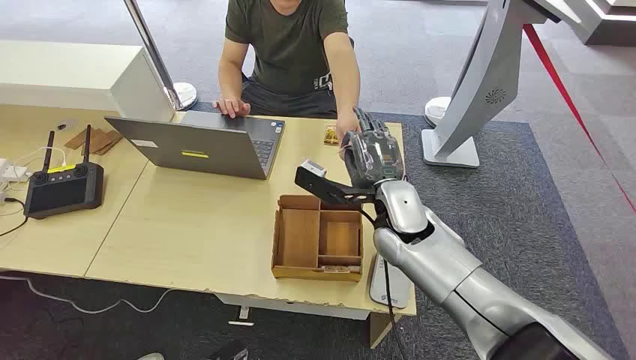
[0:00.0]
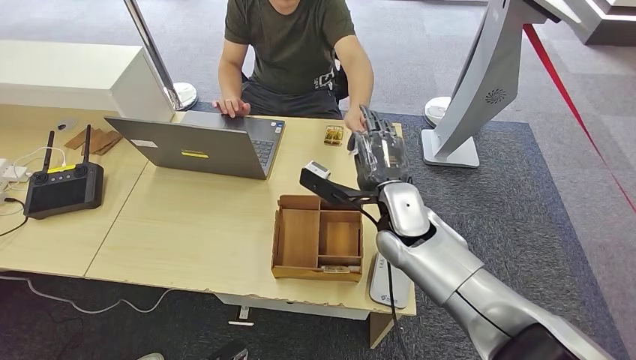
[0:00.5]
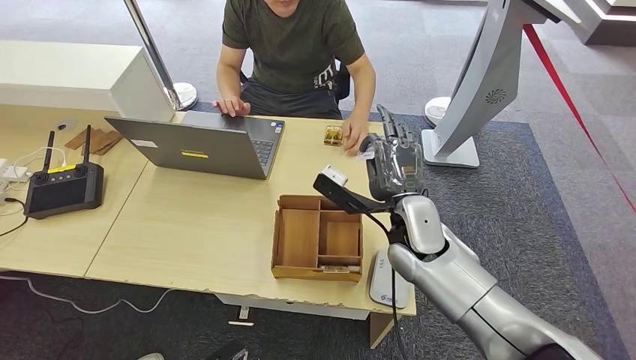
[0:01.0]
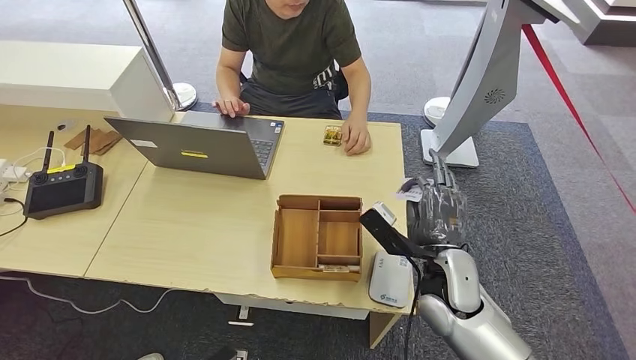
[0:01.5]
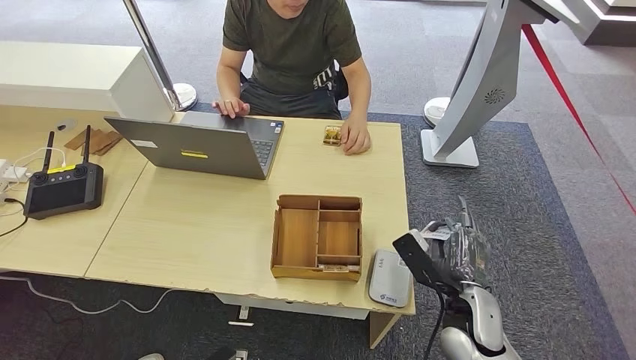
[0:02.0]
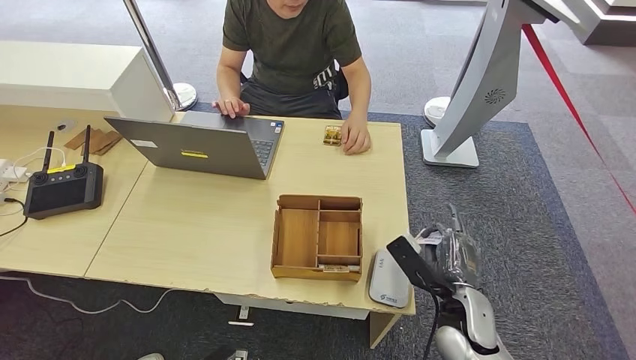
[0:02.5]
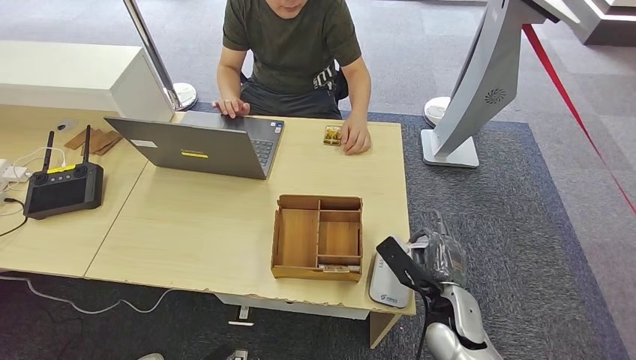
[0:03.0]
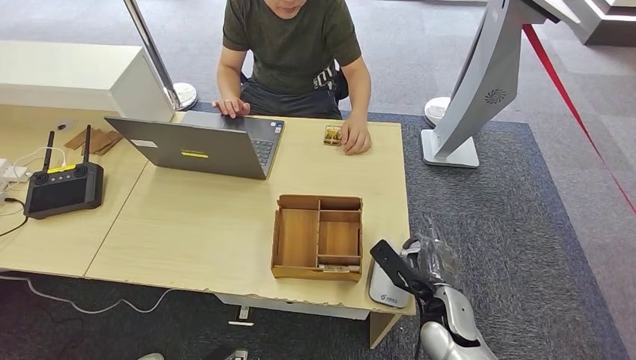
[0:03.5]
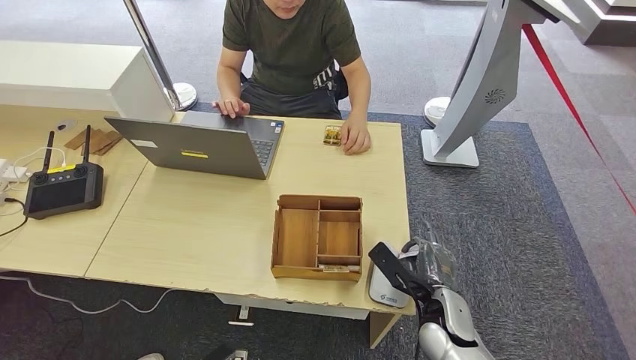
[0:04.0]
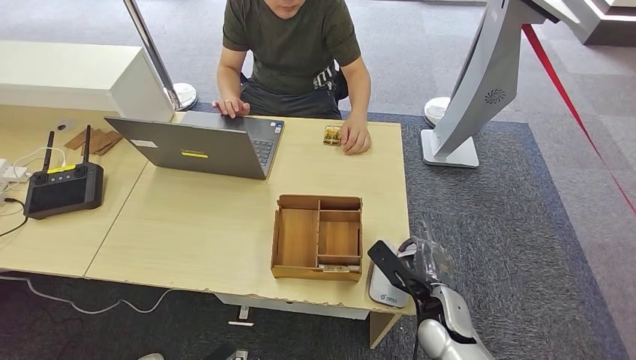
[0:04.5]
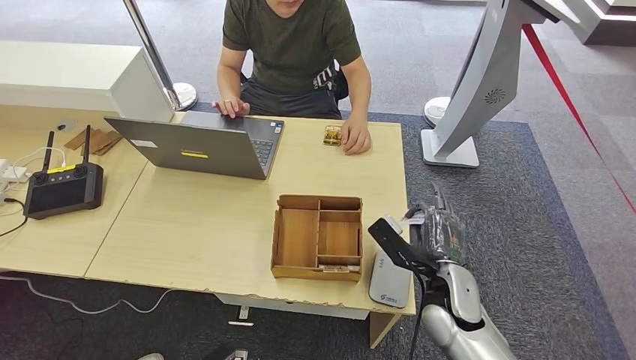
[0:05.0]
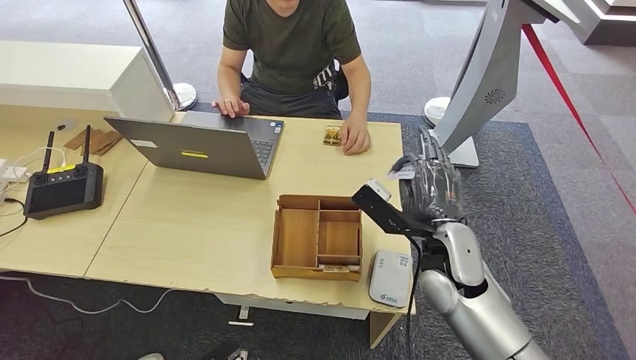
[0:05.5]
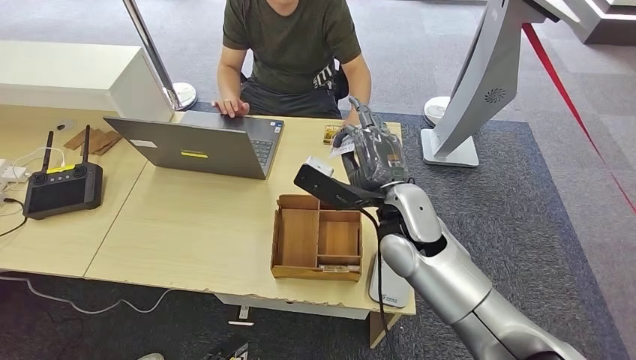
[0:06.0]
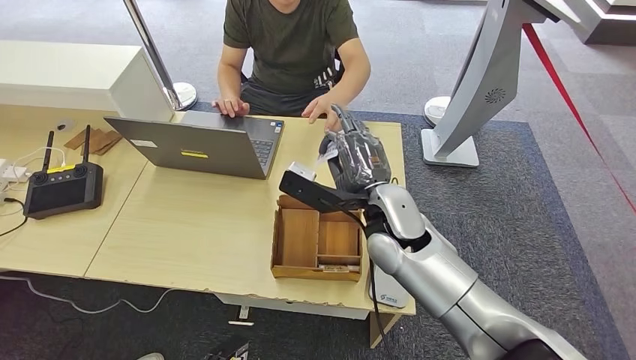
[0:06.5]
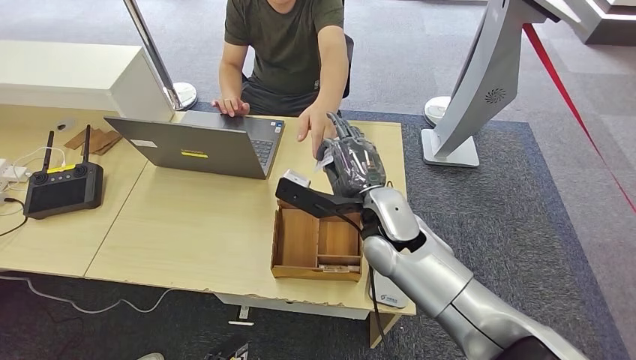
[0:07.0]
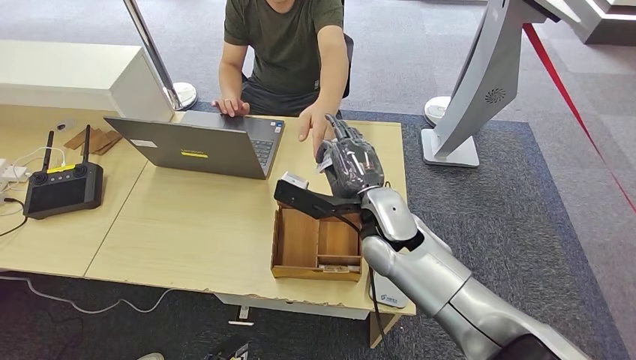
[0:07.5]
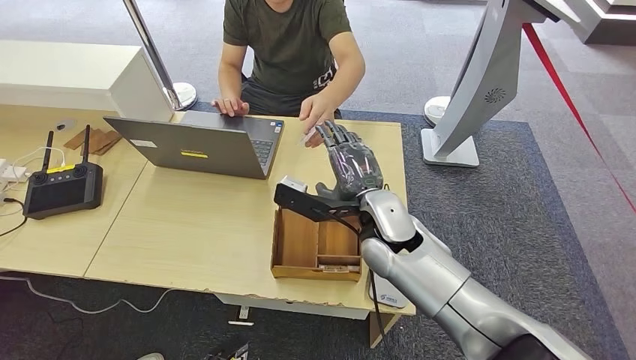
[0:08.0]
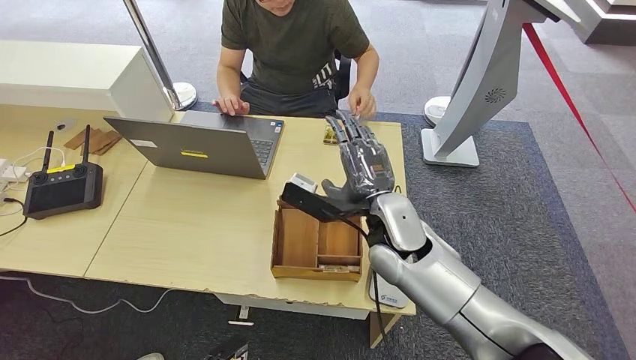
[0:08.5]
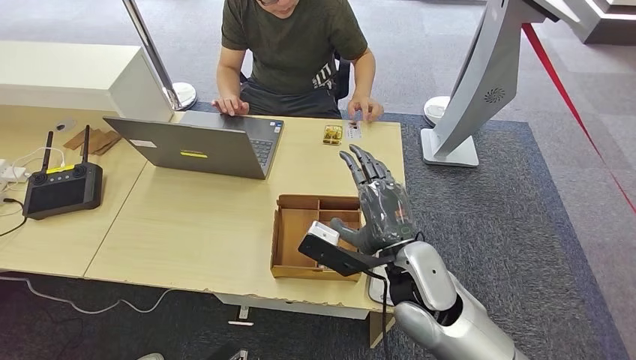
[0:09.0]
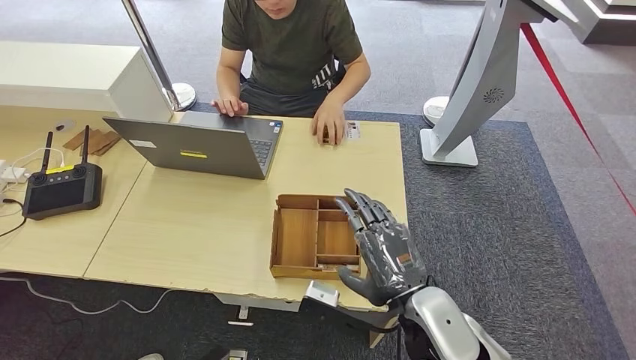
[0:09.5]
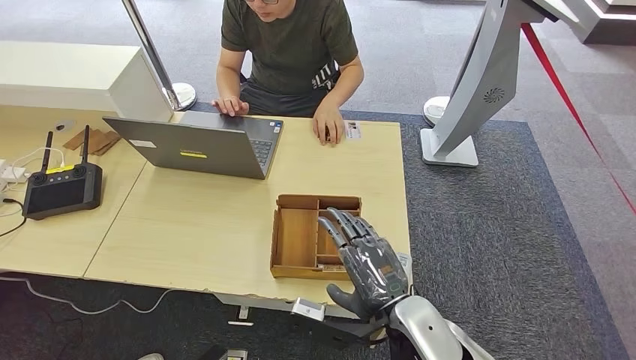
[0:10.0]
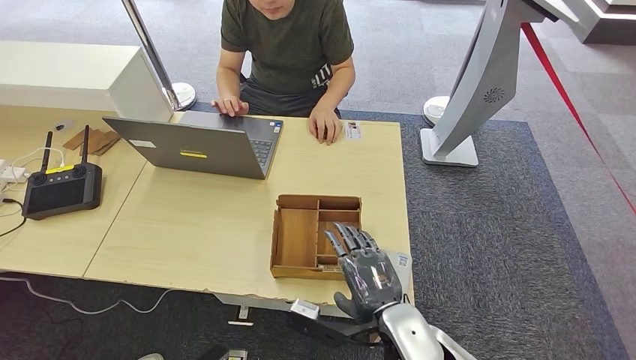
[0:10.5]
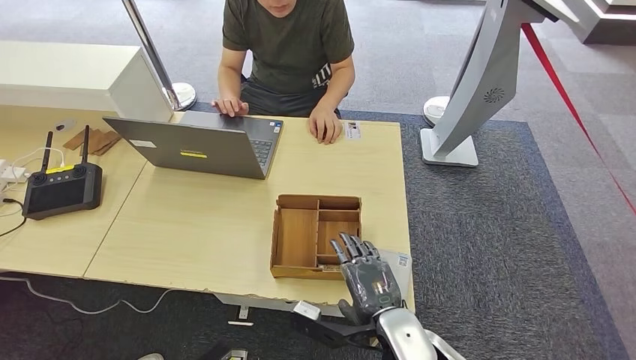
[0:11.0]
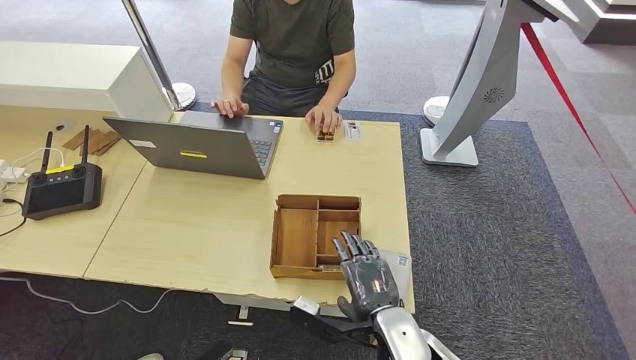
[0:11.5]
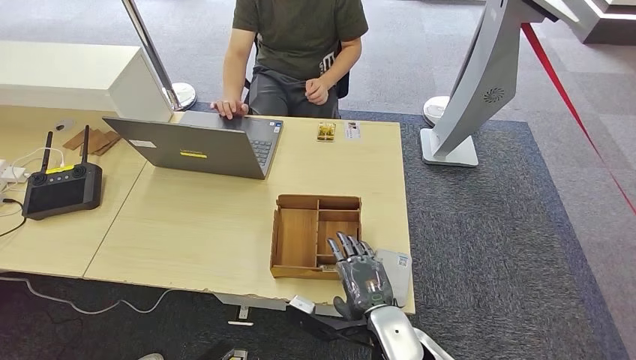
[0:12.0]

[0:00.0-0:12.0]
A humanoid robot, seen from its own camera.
Step, 0:00.0 to 0:01.0: Take the ID card from the person's hand.
Step, 0:01.5 to 0:04.5: Place the ID card on the card reader.
Step, 0:05.0 to 0:08.5: Hand the ID card to the person.
0:02.0 to 0:04.0: The right hand shifts by some 5 cm.
0:04.0 to 0:06.0: The right hand moves upward and to the left, approximately 20 cm.
0:06.0 to 0:08.0: There are only small adjustments of the hands.
0:08.0 to 0:10.0: The right hand is displaced backward by some 15 cm.
0:10.0 to 0:12.0: The right hand shifts about 10 cm downward.

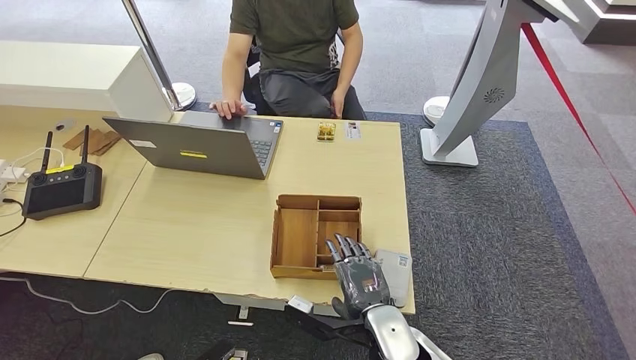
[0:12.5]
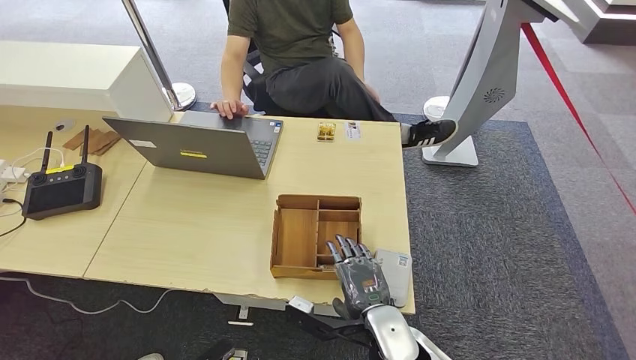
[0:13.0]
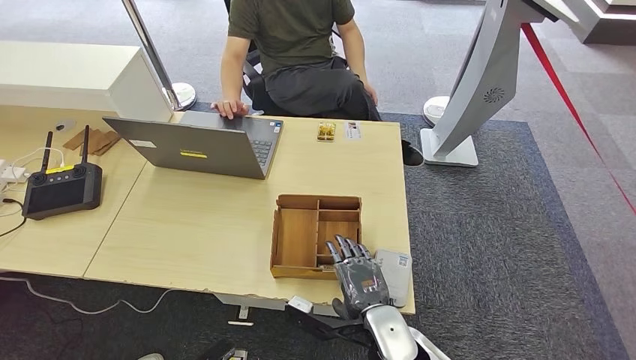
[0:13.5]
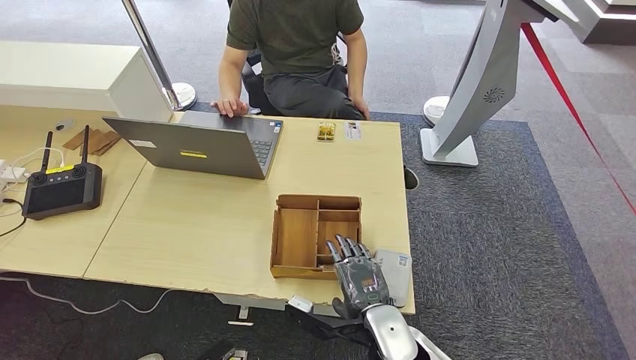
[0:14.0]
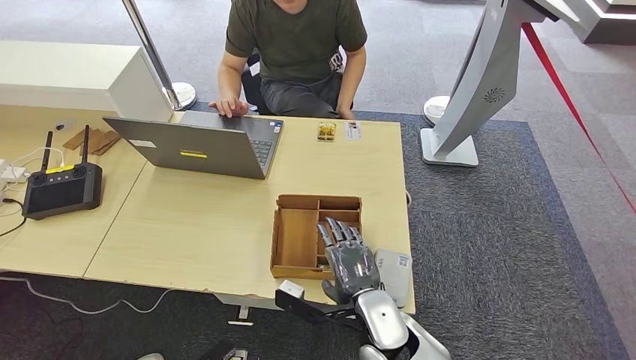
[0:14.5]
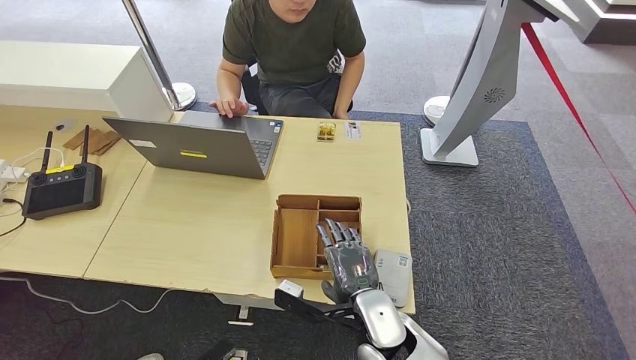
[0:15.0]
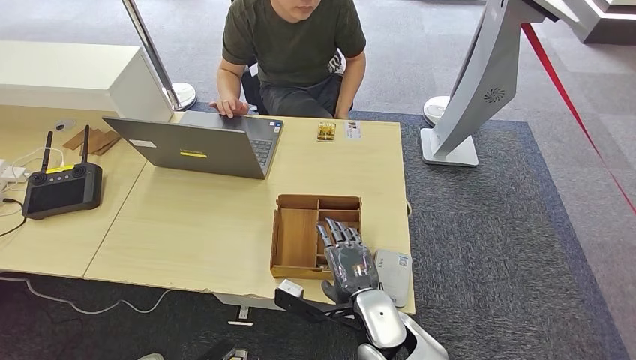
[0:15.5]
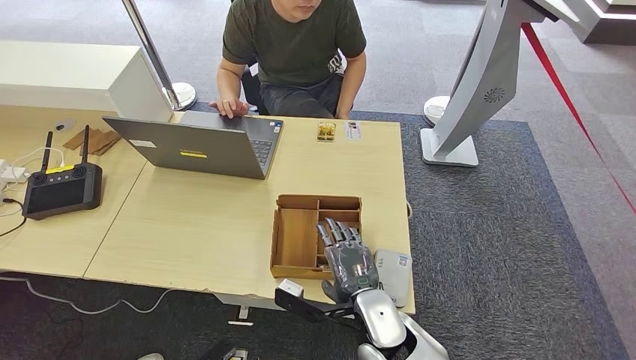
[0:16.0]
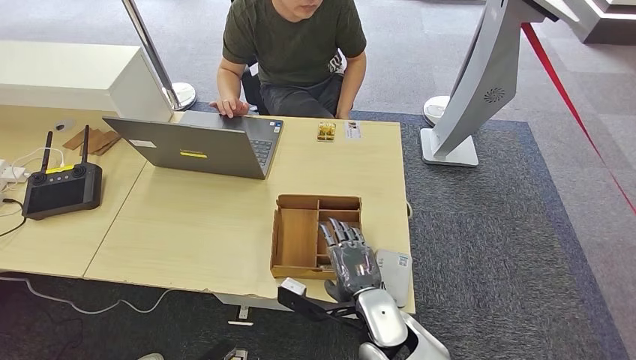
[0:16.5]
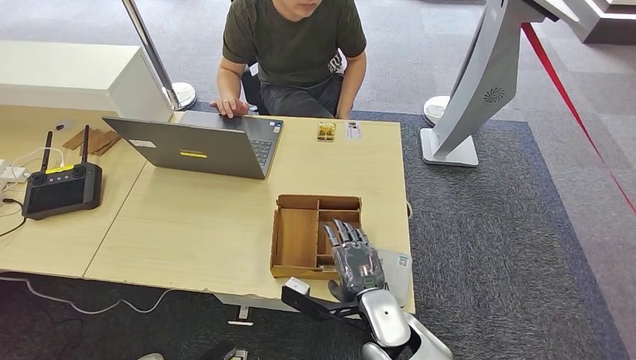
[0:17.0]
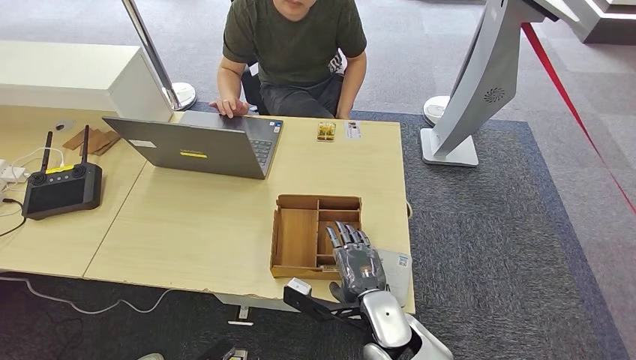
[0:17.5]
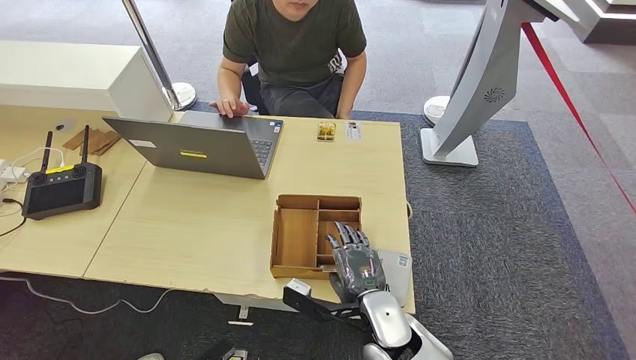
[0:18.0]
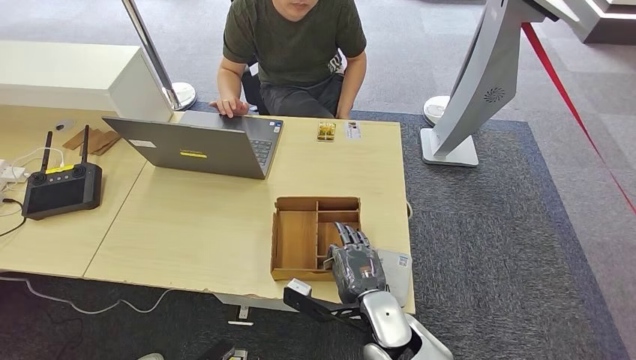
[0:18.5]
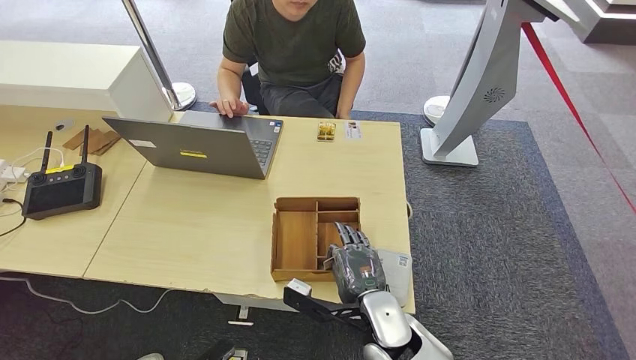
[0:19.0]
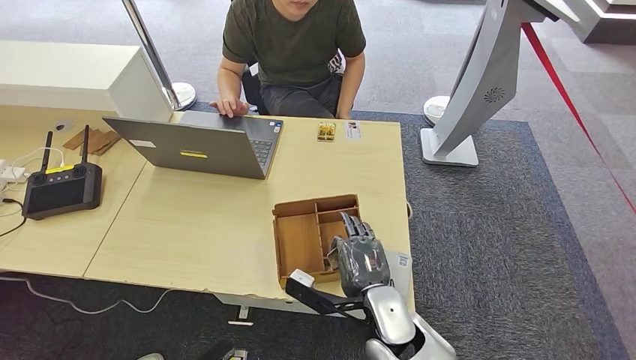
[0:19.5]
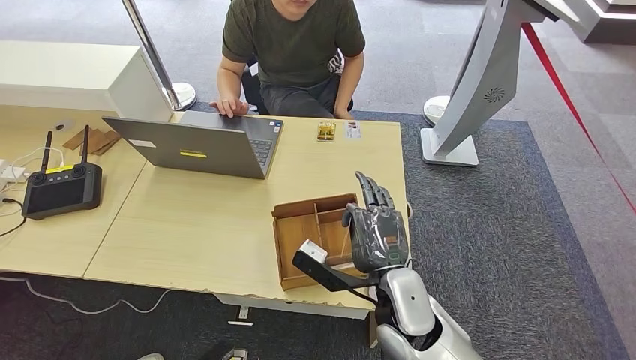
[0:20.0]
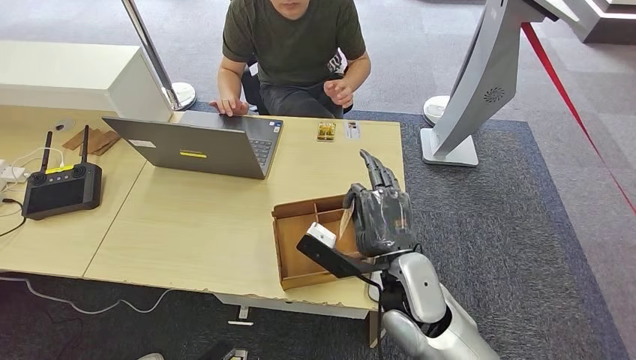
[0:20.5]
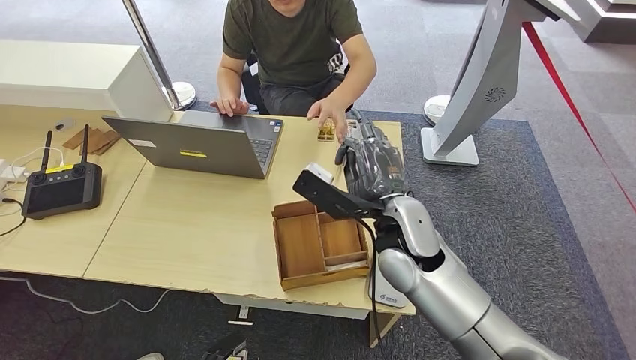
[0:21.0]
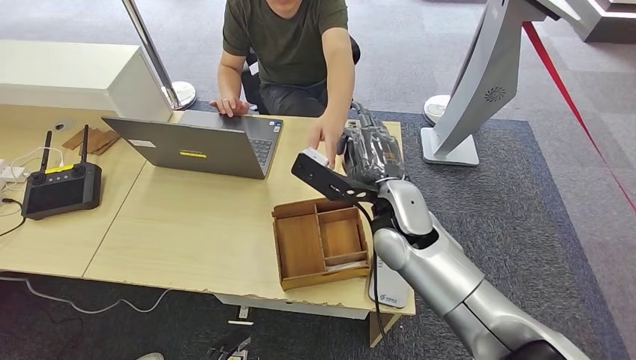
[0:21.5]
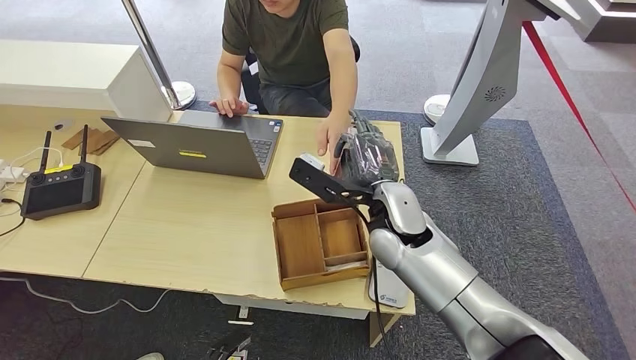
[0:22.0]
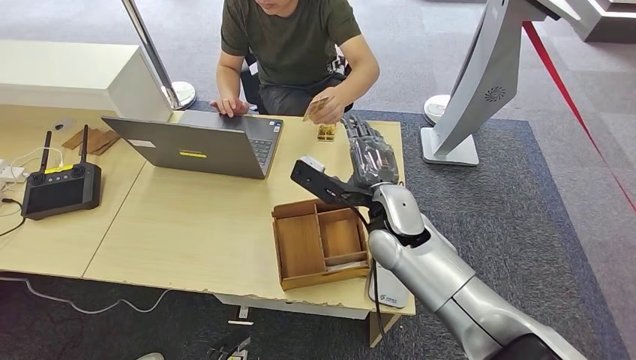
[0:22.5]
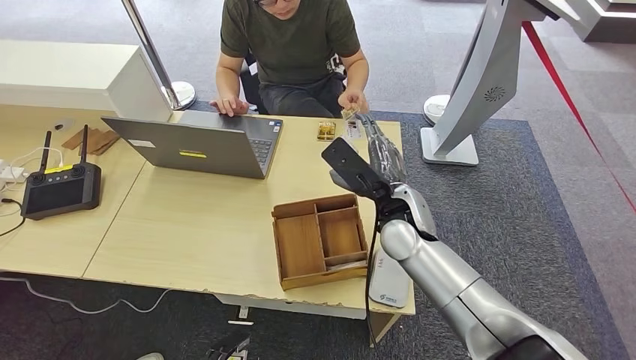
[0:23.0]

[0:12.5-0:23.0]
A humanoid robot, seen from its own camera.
Step, 0:18.0 to 0:21.0: Pick up the room key from the key card box.
0:12.5 to 0:14.5: There are only small adjustments of the hands.
0:14.5 to 0:16.5: Neither hand changes place.
0:16.5 to 0:19.0: Both hands stay put.
0:19.0 to 0:21.0: The right hand travels upward and forward by approximately 15 cm.
0:21.0 to 0:23.0: The right hand shifts by approximately 5 cm.
